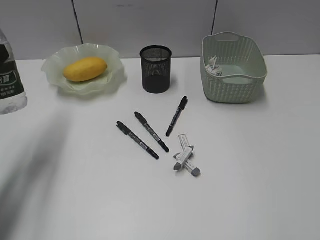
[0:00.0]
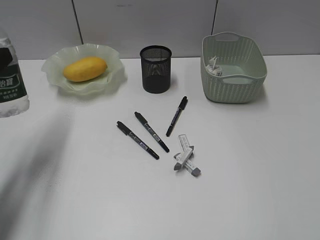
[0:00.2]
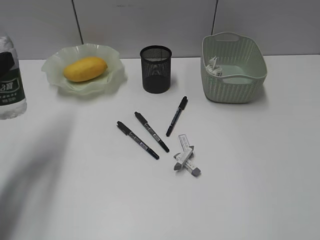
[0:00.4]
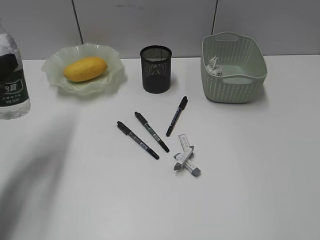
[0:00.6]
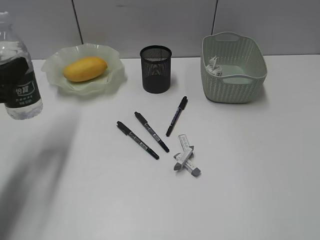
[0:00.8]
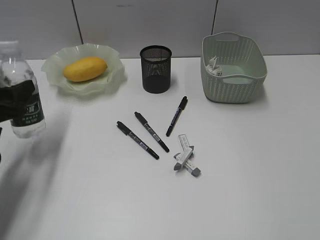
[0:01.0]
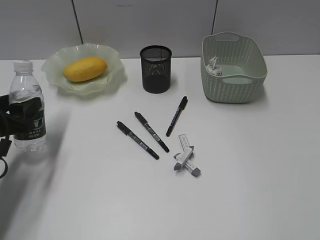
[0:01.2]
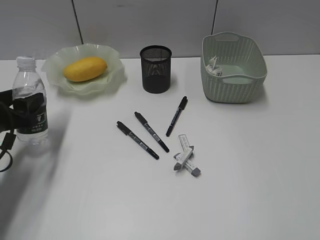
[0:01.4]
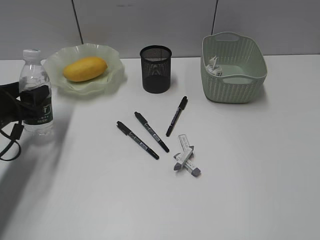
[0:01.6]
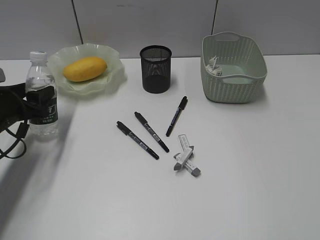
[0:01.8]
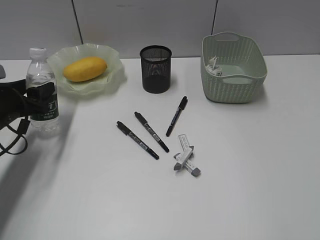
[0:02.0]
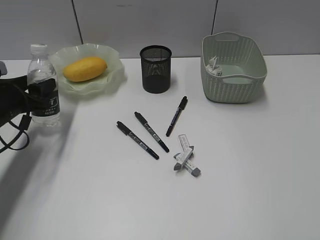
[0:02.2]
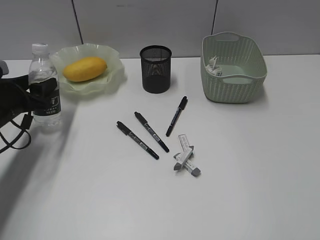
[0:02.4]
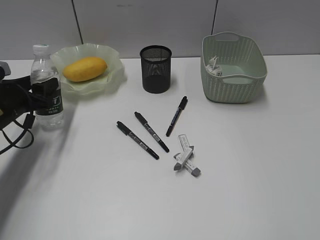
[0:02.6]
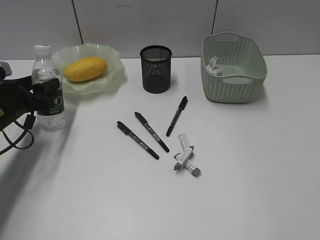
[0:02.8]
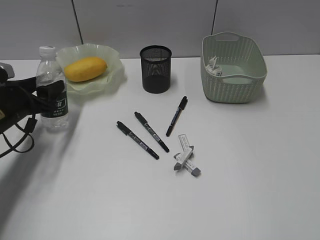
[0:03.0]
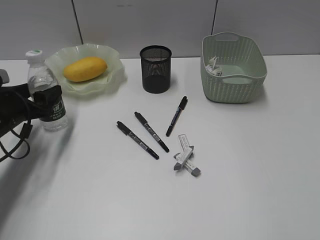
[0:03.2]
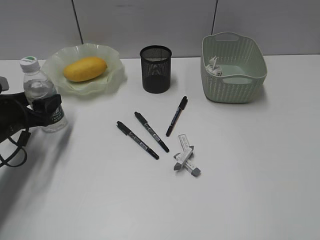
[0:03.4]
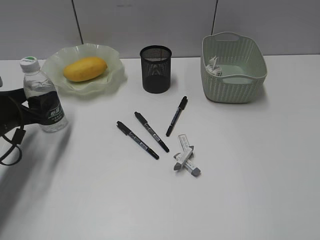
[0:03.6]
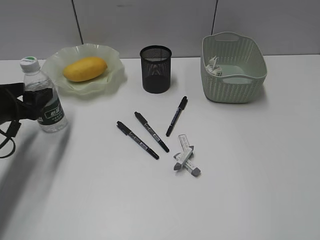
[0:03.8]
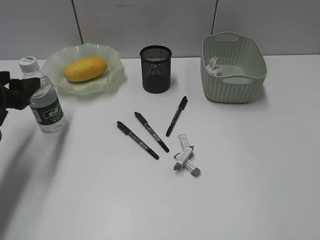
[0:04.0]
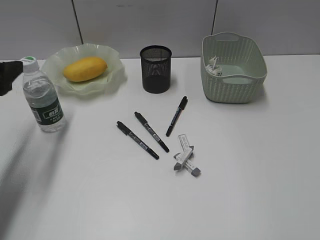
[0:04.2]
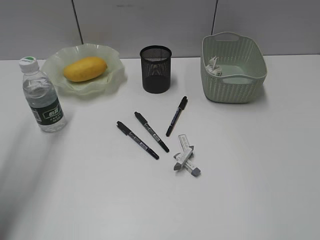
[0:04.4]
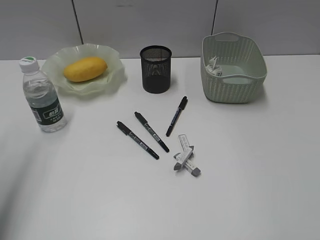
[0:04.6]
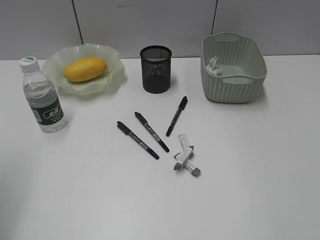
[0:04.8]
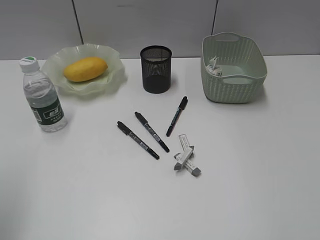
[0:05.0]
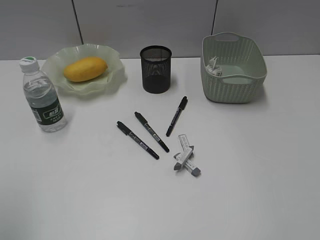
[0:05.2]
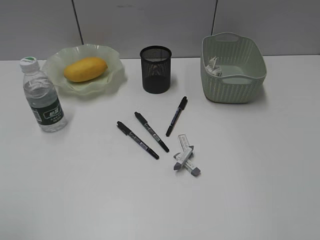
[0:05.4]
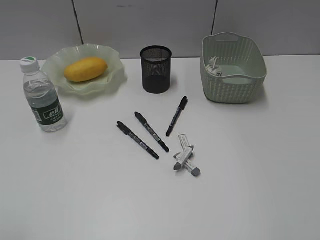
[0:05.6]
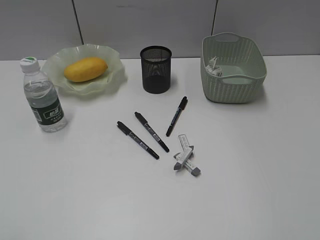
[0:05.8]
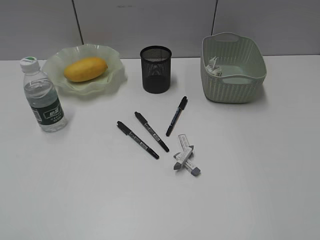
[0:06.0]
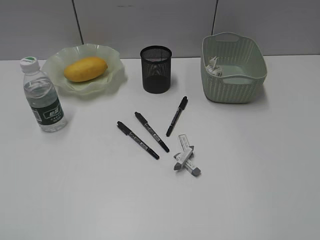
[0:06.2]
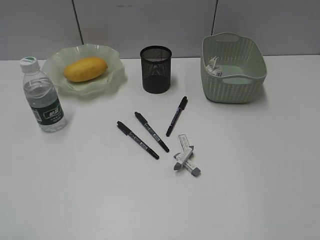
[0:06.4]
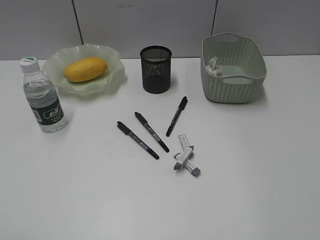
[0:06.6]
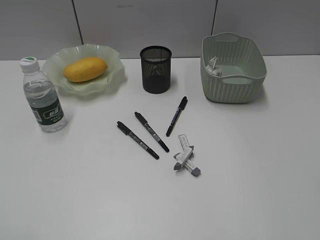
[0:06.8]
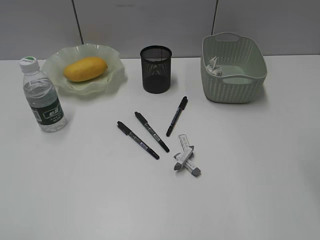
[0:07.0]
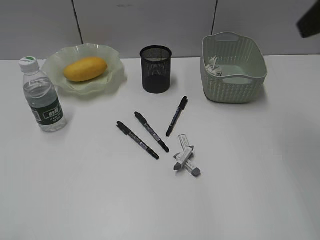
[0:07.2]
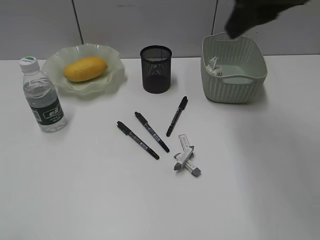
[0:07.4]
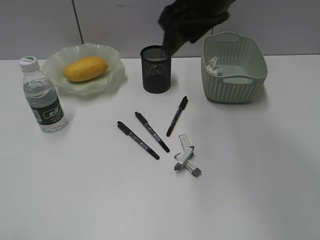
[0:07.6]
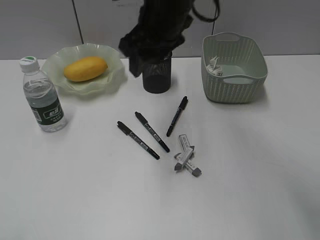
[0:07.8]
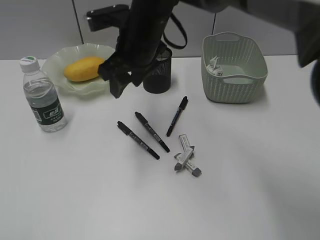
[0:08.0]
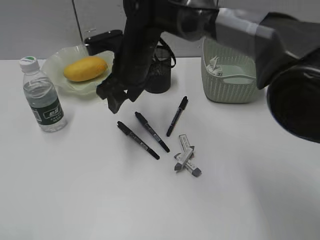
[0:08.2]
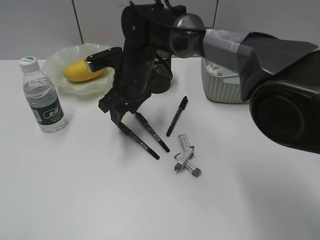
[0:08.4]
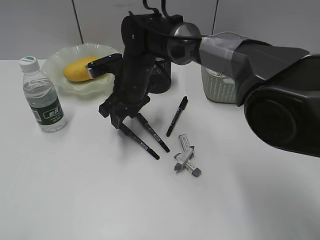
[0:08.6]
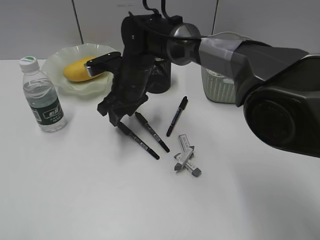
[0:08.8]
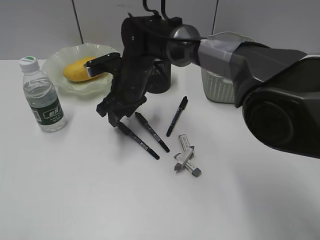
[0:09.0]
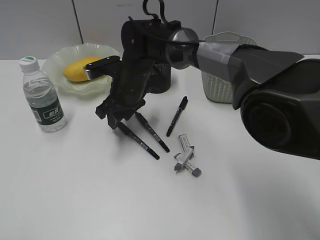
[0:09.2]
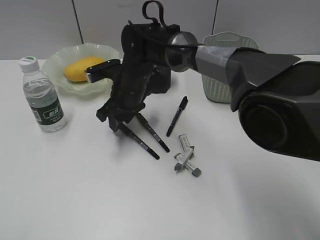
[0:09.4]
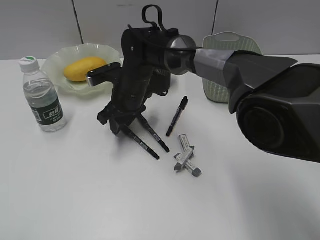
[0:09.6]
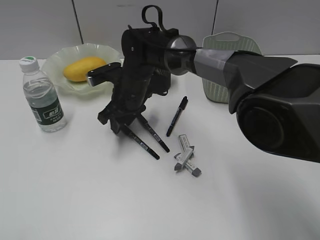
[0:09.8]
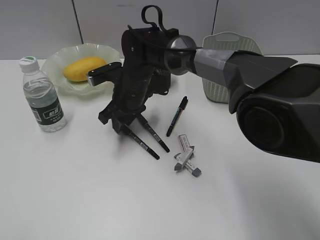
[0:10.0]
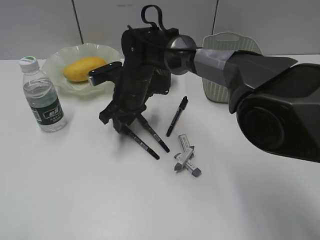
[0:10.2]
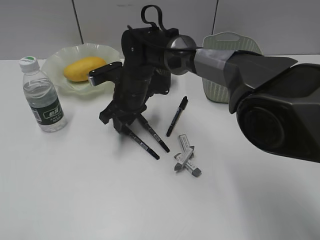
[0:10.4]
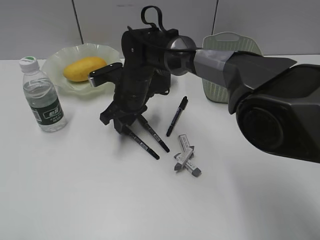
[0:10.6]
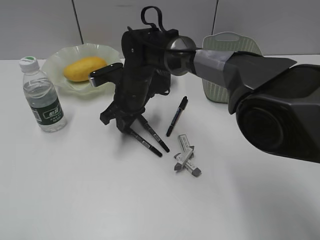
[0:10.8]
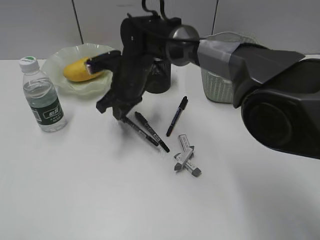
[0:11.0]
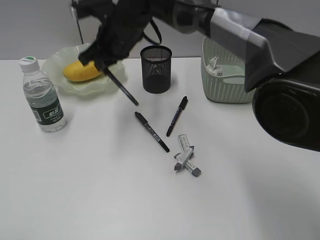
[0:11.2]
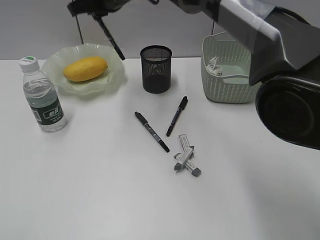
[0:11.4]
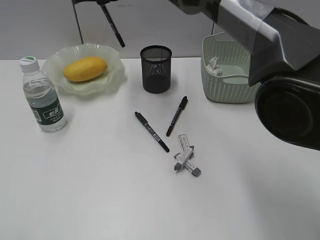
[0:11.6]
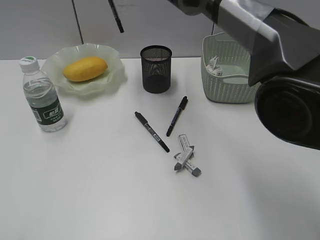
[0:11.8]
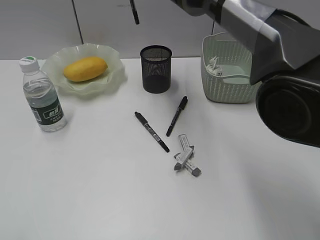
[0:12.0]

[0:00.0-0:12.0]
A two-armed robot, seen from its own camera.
Step, 0:00.0 to 0:03.8: Stand the bottle with left gripper.
Step, 0:04.0 to 0:10.8: Grasp the black pen with right gripper.
0:00.0 to 0:01.6: The left gripper shifts some 15 cm downward and forward.
0:01.6 to 0:03.0: The grippers make only small movements.
0:03.0 to 0:04.4: The left gripper shifts approximately 20 cm upward and backward.
0:04.4 to 0:06.0: The left gripper is displaced backward by roughly 25 cm.
0:06.0 to 0:07.6: The right gripper goes roughly 40 cm forward and to the left.
0:07.6 to 0:09.0: The right gripper travels downward and to the left by approximately 25 cm.
0:09.0 to 0:10.4: The grippers move only a little.
0:10.4 to 0:12.0: The right gripper is displaced upward by some 20 cm, and closes its fingers.

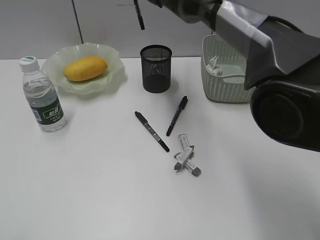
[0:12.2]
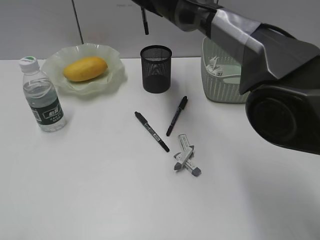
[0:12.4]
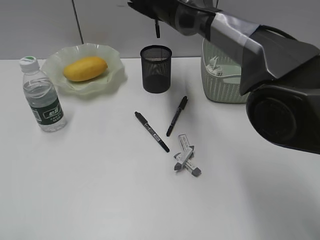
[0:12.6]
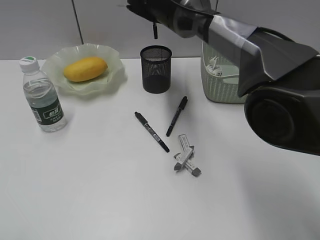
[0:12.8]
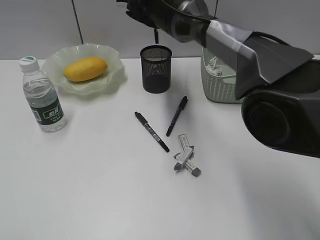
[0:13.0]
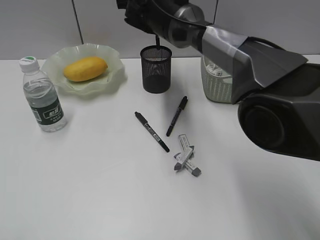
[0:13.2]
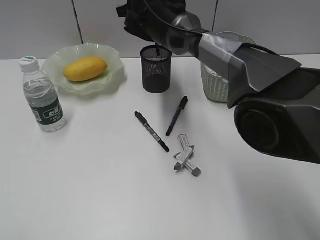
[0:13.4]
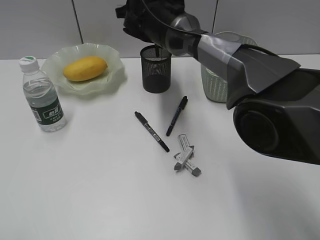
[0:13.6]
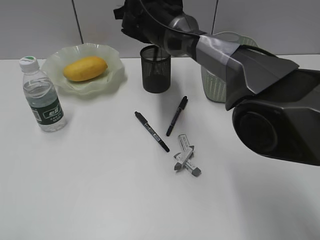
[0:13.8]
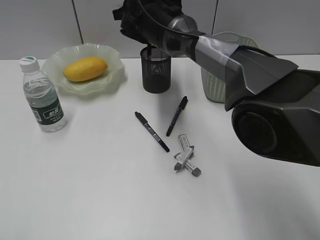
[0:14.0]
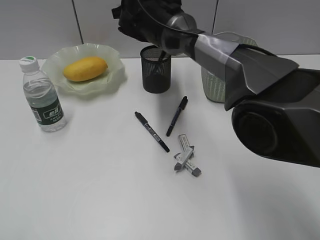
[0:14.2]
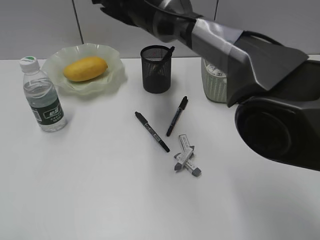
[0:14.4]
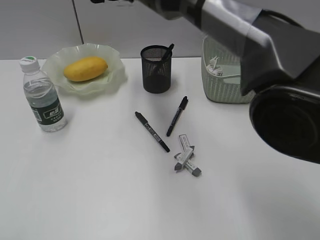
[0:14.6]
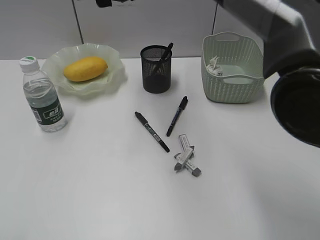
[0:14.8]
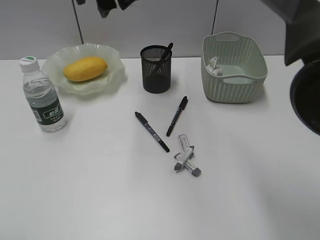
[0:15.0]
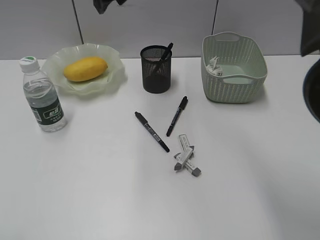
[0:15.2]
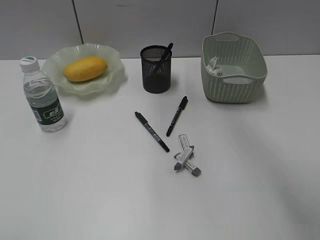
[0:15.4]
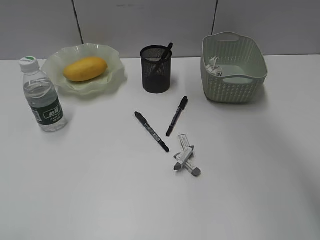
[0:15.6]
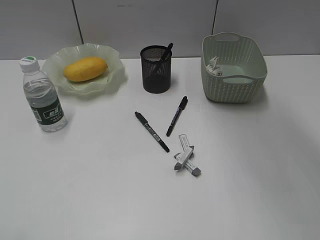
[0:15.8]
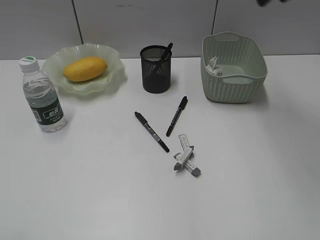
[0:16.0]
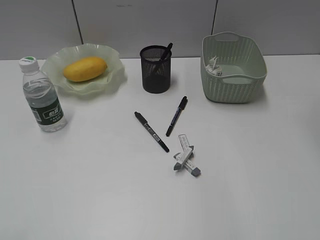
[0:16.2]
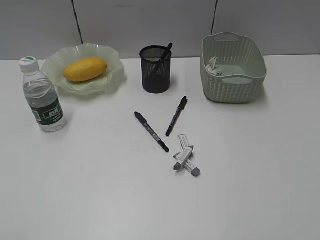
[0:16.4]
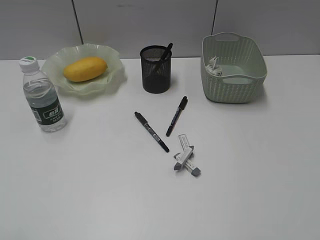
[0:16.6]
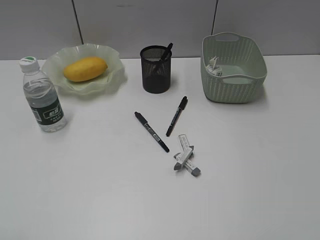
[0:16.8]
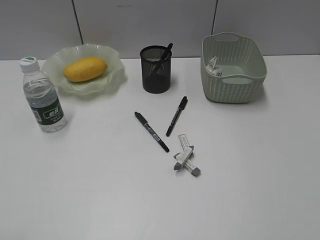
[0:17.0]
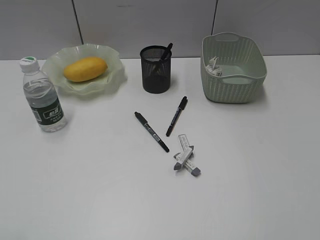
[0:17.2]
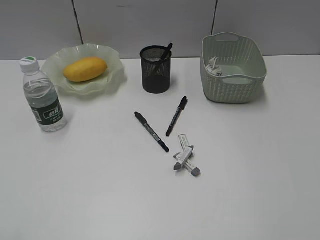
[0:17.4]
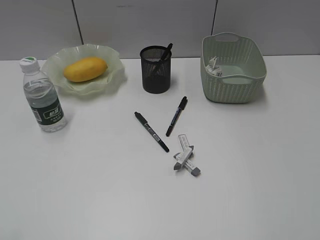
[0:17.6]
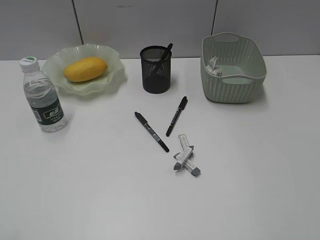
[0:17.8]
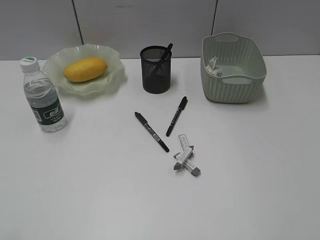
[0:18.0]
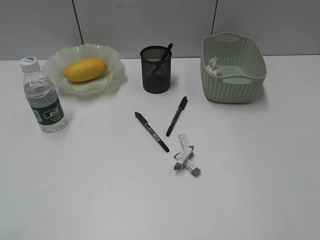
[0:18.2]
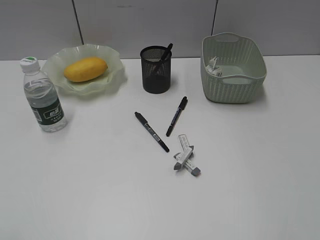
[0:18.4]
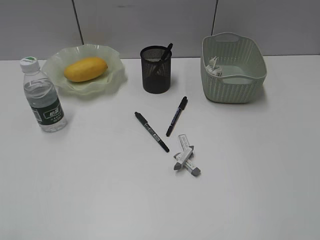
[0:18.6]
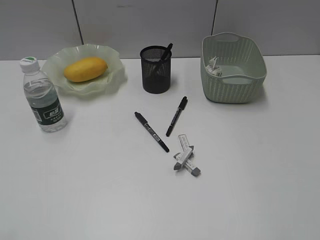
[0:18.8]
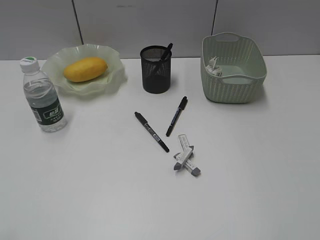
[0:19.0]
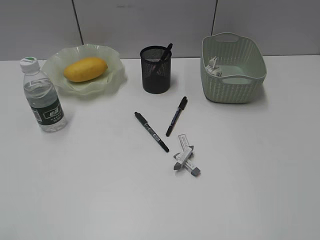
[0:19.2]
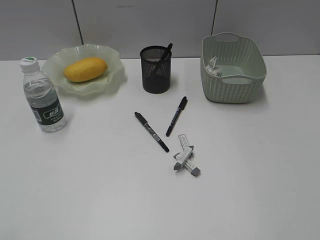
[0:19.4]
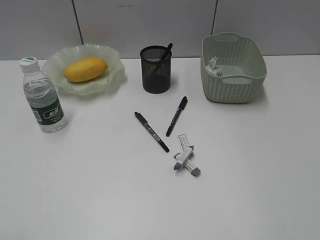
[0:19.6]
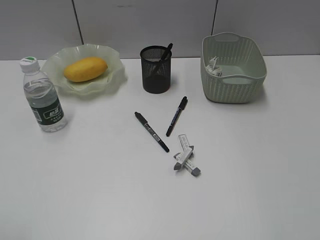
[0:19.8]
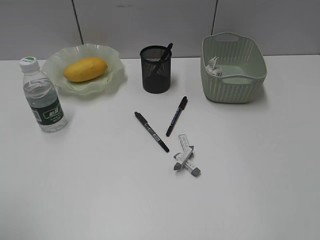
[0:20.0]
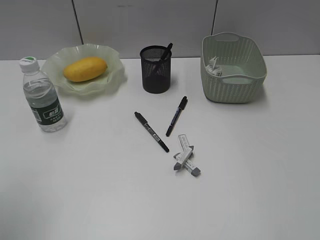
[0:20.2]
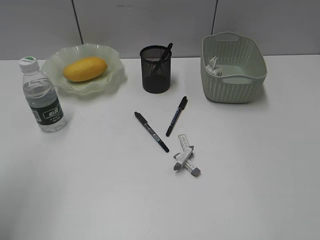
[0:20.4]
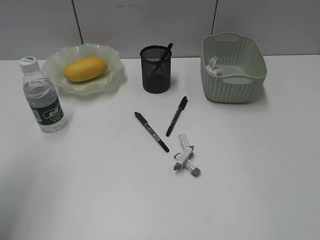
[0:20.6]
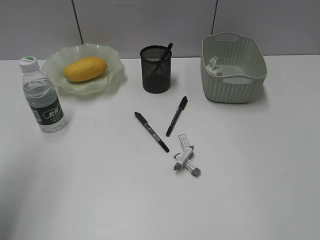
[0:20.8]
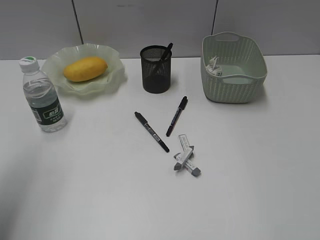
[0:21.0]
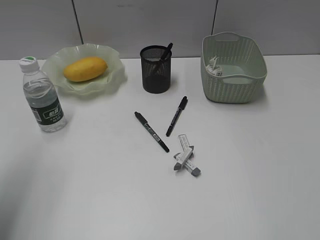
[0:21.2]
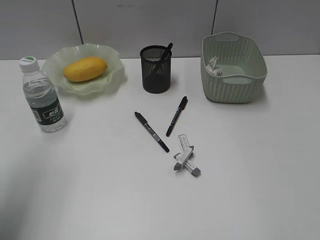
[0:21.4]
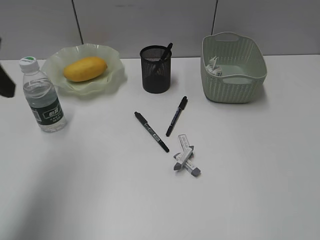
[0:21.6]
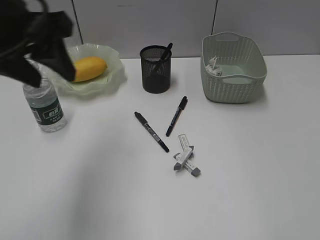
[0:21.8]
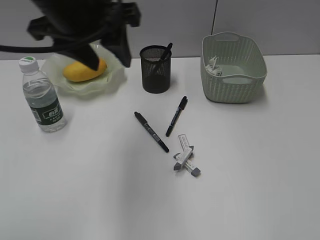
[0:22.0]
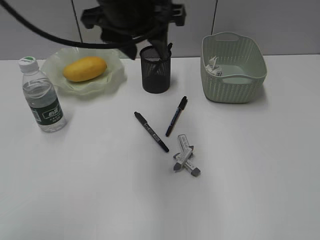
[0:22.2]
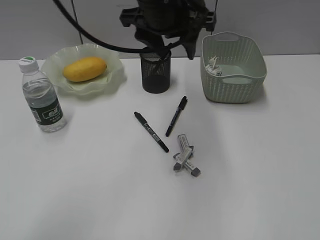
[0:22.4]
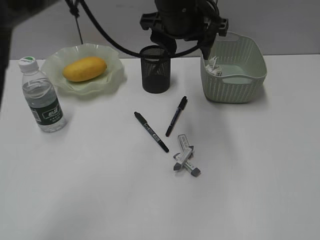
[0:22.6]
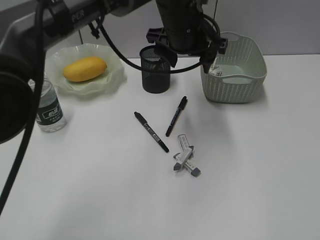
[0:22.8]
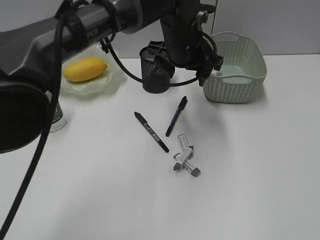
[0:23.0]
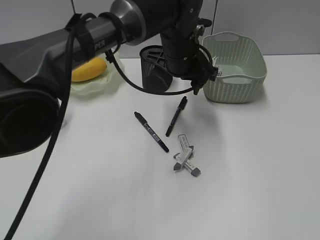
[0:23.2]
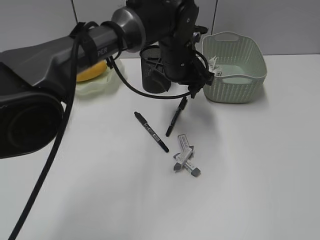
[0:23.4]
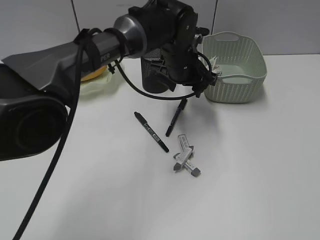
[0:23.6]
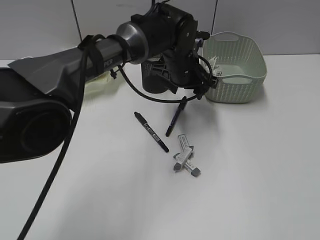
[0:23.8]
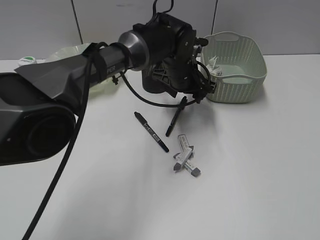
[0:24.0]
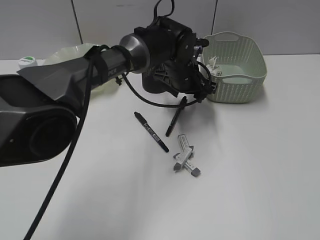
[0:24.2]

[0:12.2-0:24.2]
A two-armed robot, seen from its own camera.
Step, 0:12.2 to 0:14.4: Place the black pen in pen holder with right gripper.
0:12.2 to 0:13.8: The right gripper travels downward by about 5 cm, and opens up.
0:13.8 to 0:15.2: The right gripper moves upward and backward, roughly 20 cm.
0:15.2 to 0:16.6: The right gripper heads to the right and backward, covering some 40 cm.
0:19.8 to 0:21.2: The left gripper shifts about 20 cm forward.
0:21.2 to 0:22.6: The left gripper goes approximately 35 cm to the right and forward.
0:22.6 to 0:24.2: The left gripper moves downward, some 15 cm.
